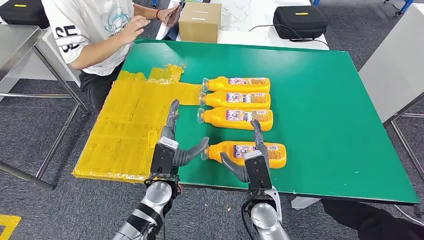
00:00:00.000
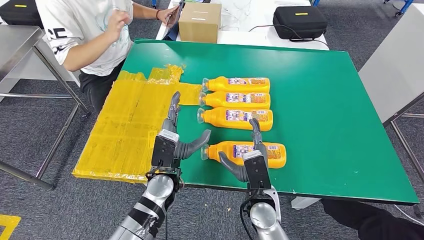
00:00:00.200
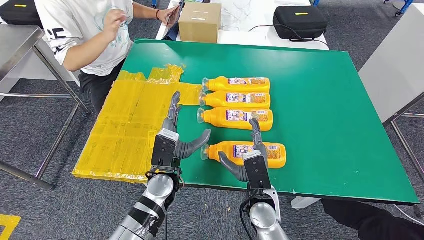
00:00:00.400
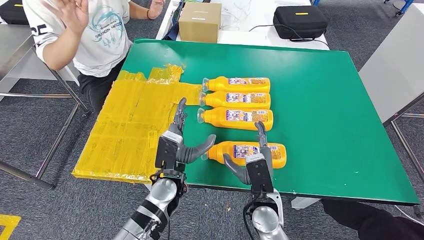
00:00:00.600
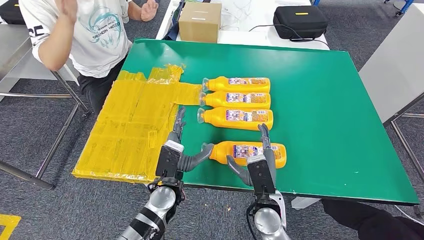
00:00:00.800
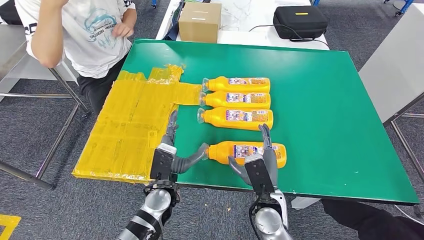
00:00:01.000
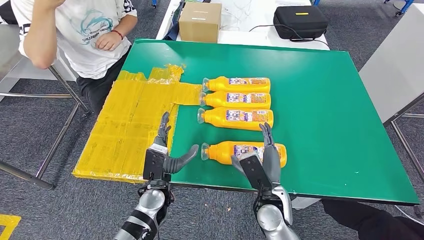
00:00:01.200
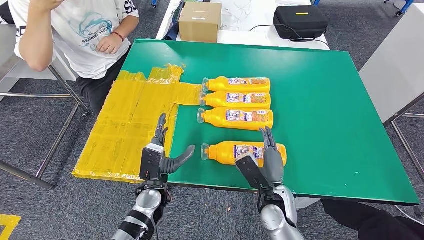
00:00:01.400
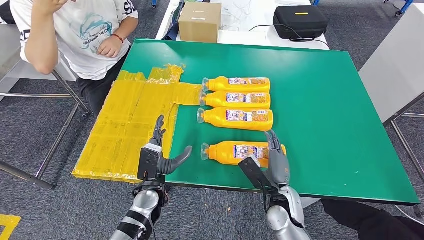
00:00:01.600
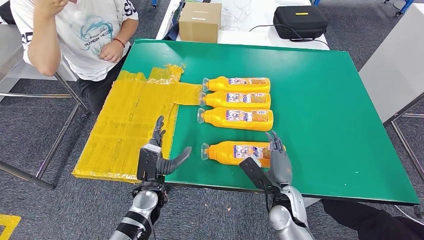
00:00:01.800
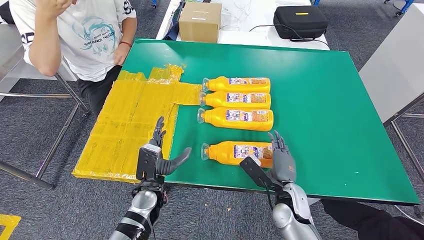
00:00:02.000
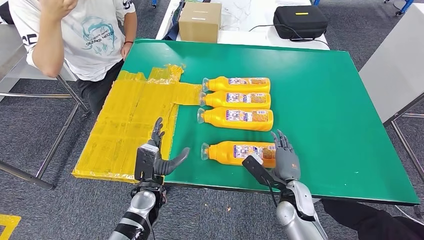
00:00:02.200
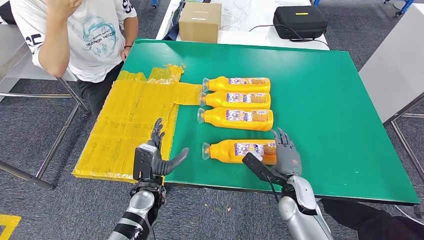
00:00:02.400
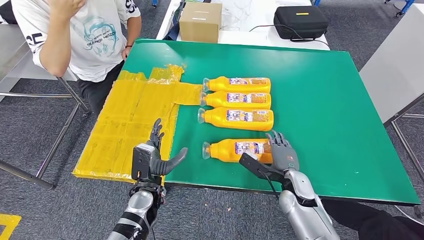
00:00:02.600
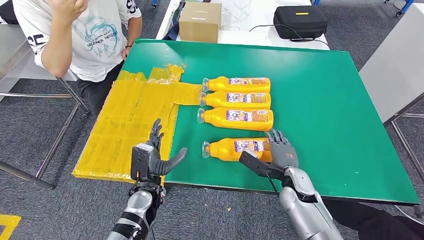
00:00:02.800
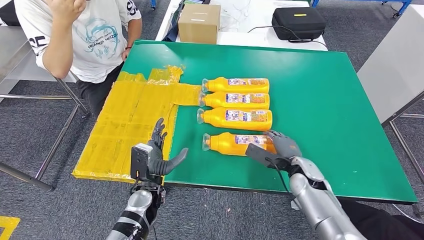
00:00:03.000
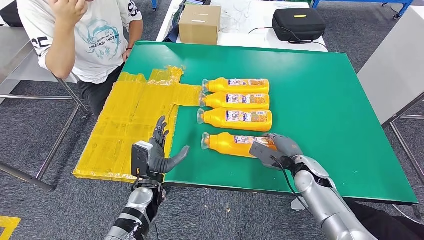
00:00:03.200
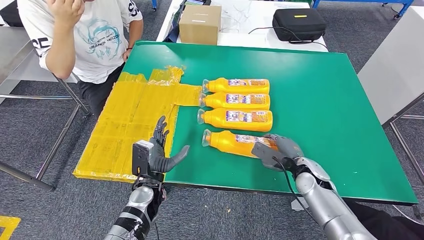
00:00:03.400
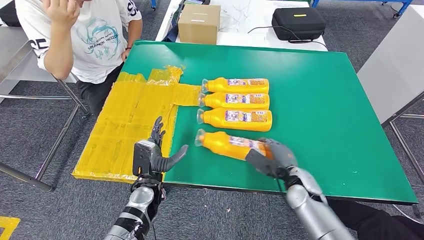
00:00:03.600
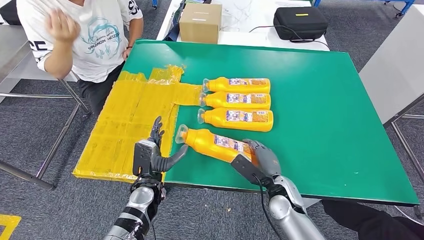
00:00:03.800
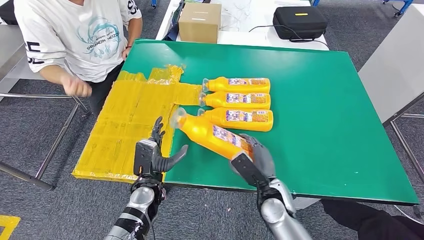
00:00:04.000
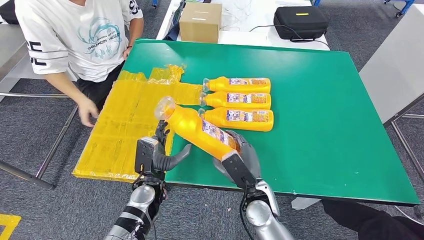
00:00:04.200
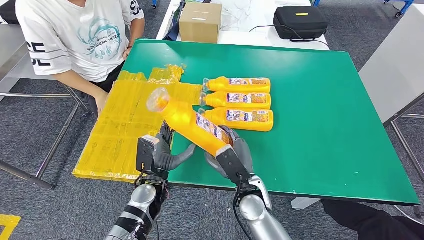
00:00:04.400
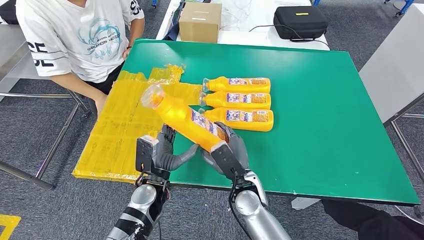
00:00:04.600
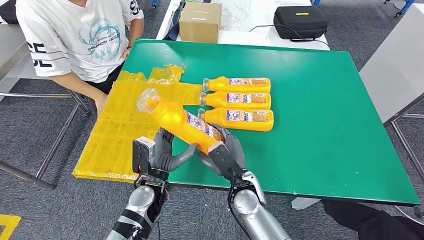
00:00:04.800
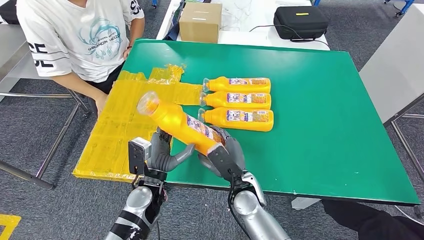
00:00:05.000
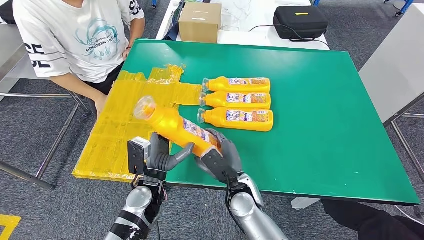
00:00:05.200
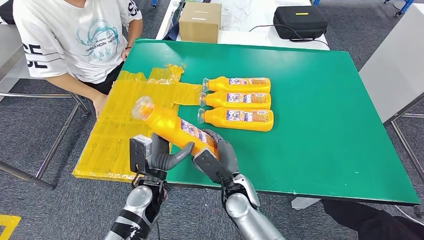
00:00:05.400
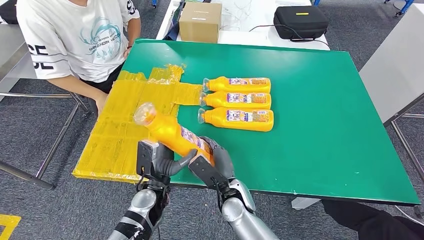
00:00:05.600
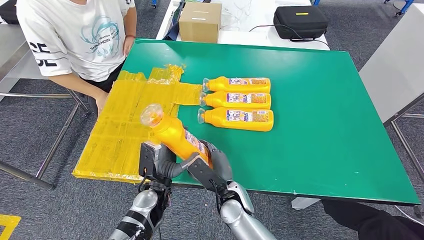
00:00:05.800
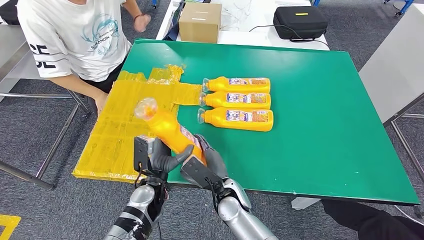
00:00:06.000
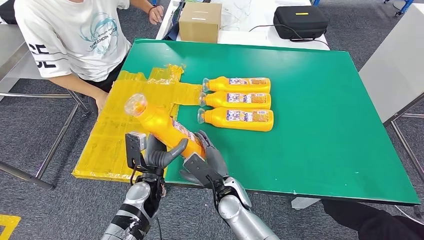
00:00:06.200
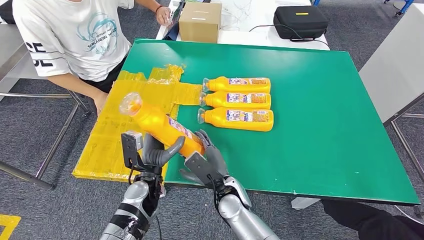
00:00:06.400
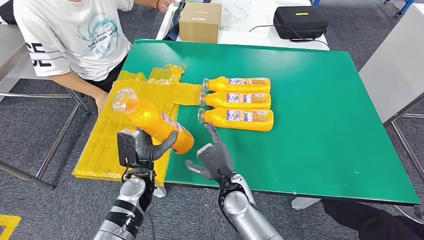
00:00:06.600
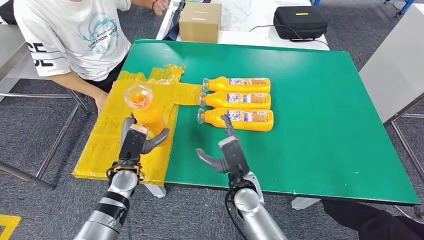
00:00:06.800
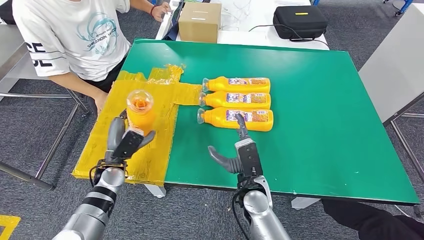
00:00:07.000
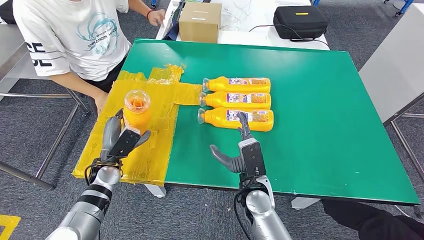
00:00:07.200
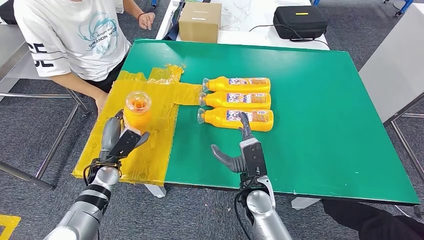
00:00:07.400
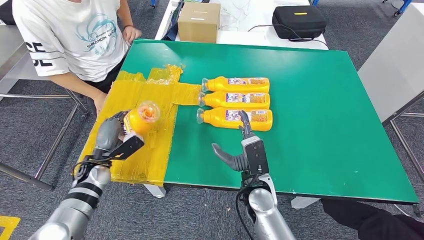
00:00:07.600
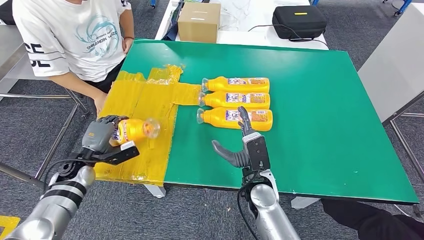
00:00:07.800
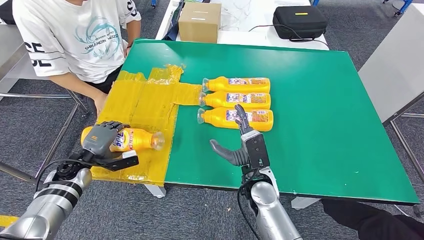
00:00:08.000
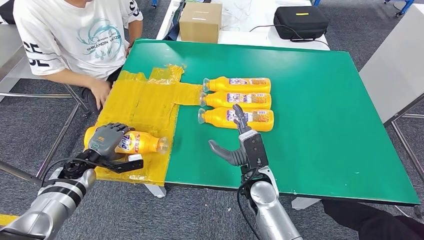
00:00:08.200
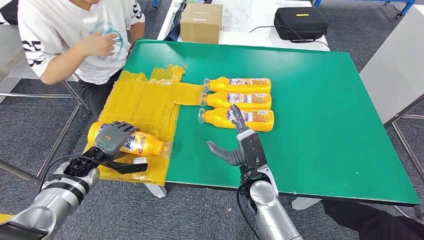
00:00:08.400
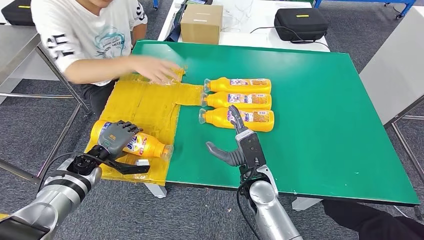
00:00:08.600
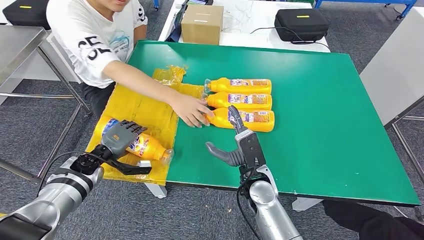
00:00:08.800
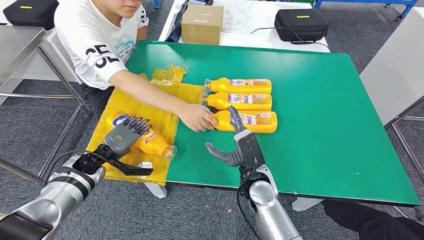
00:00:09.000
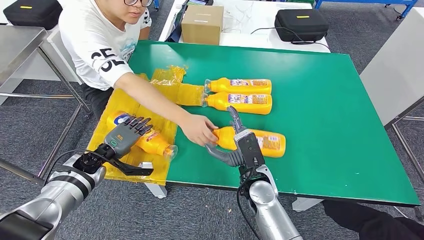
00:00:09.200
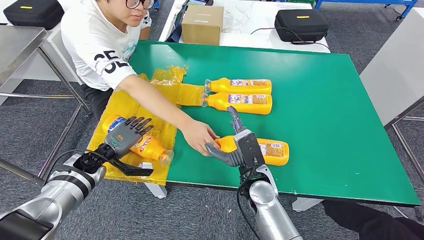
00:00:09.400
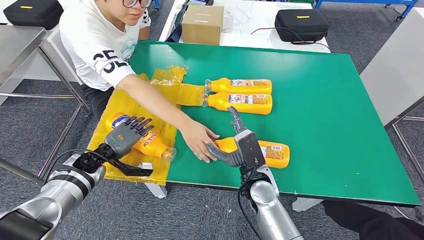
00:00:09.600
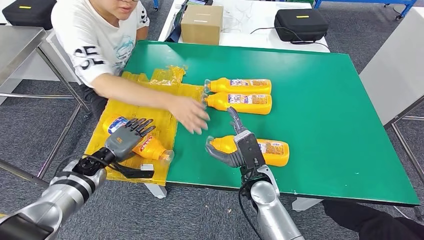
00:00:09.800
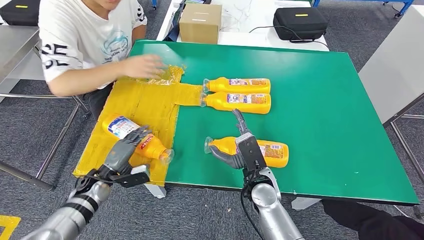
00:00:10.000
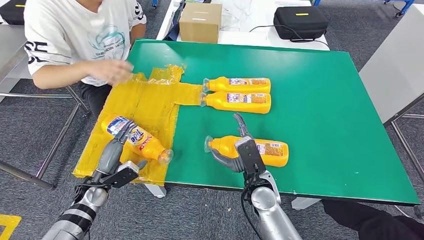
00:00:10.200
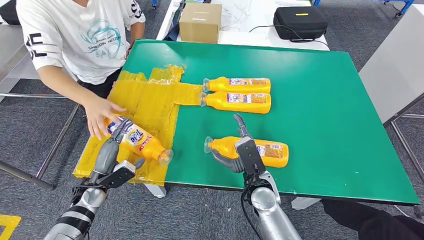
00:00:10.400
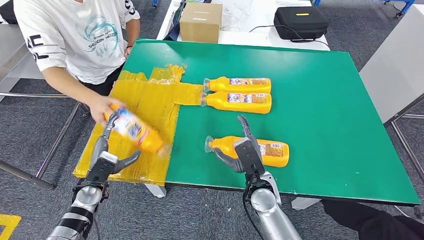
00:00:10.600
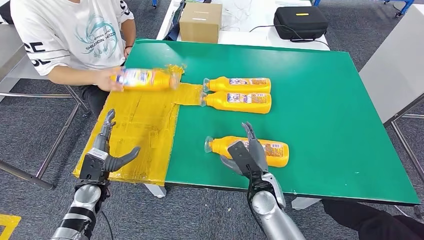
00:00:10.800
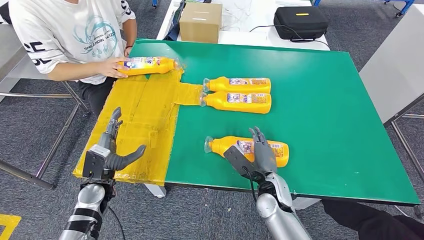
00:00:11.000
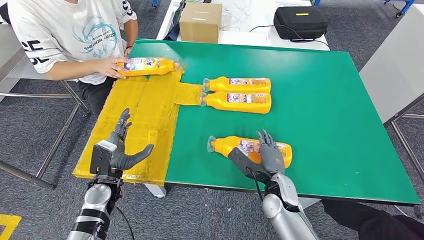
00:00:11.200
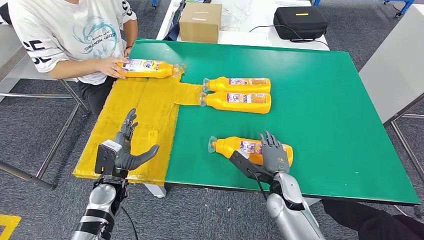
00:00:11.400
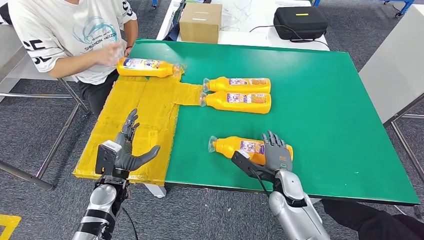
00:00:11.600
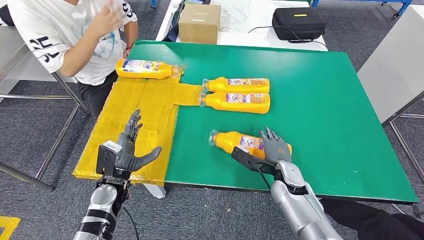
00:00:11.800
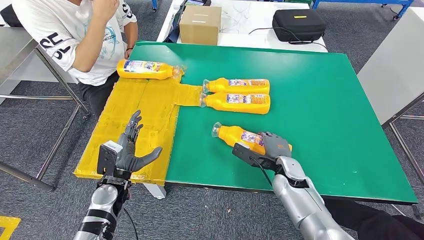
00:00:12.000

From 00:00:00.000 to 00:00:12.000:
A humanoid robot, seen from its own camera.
Step, from 00:00:00.000 to 00:00:04.800: Take the bottle from the table.
Step, from 00:00:05.200 to 00:00:10.400: Flip the bottle to face forward.
From 00:00:01.600 to 00:00:03.000: The right hand moves forward and to the right, some 10 cm.
From 00:00:04.400 to 00:00:06.000: The right hand shifts about 5 cm to the left.

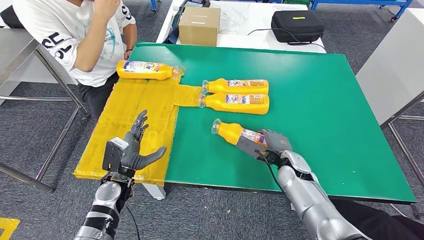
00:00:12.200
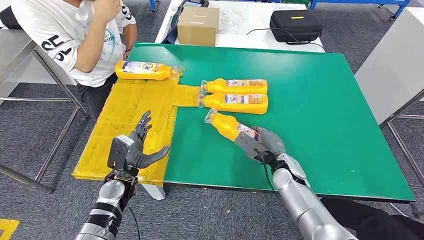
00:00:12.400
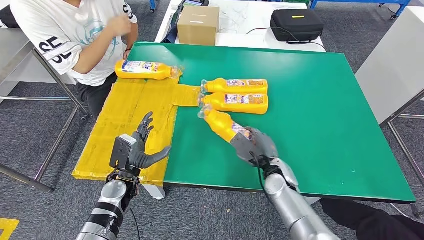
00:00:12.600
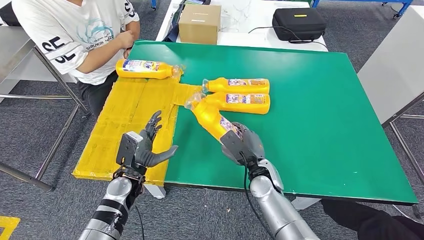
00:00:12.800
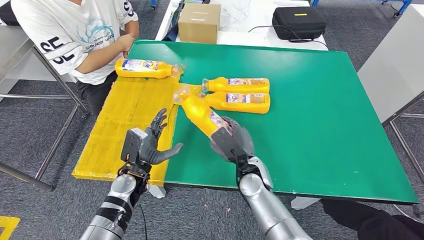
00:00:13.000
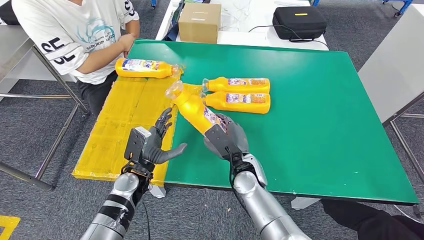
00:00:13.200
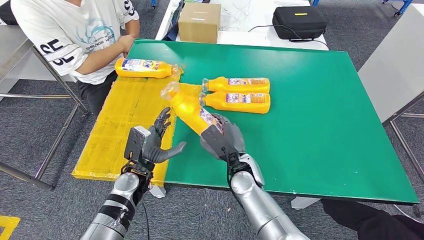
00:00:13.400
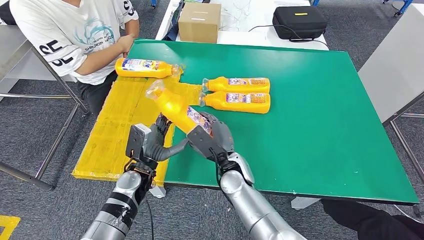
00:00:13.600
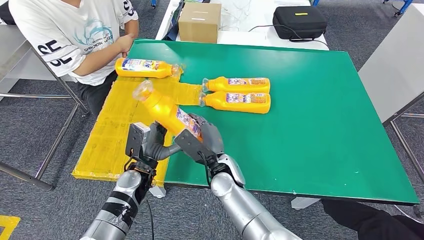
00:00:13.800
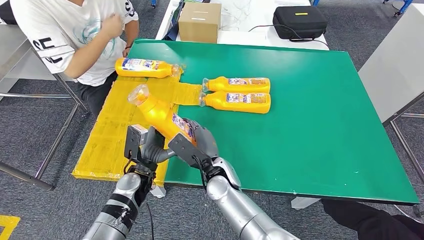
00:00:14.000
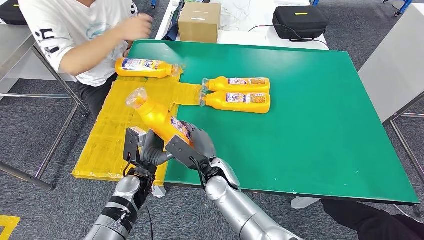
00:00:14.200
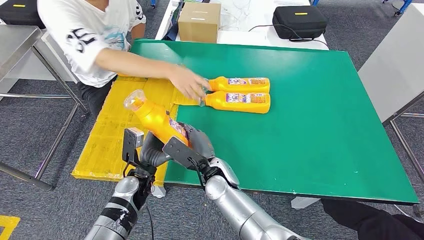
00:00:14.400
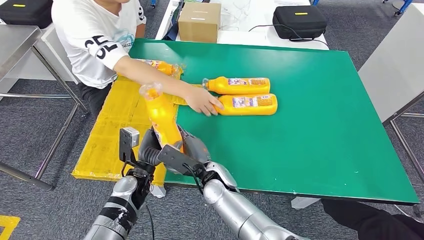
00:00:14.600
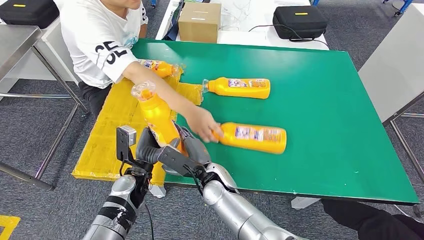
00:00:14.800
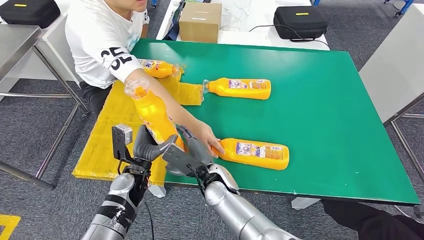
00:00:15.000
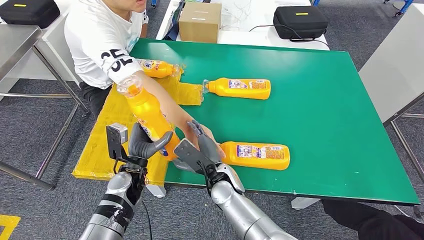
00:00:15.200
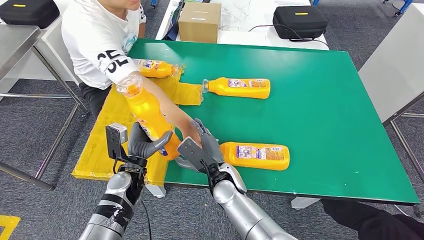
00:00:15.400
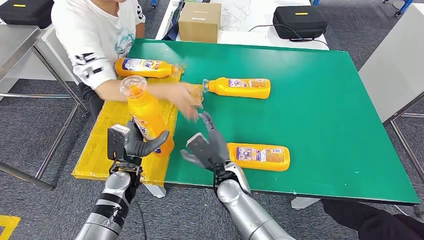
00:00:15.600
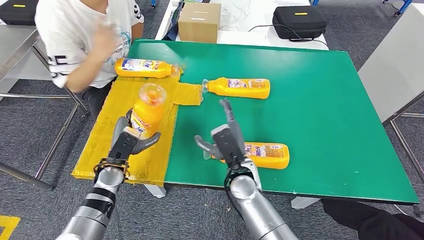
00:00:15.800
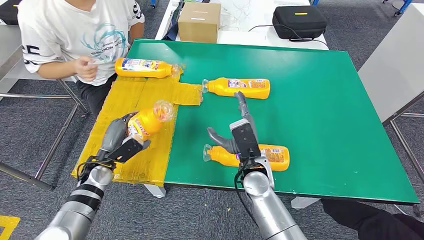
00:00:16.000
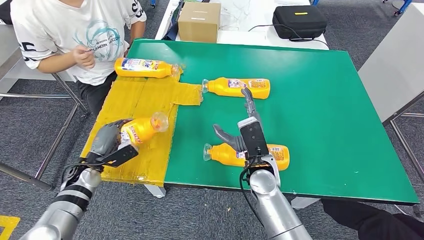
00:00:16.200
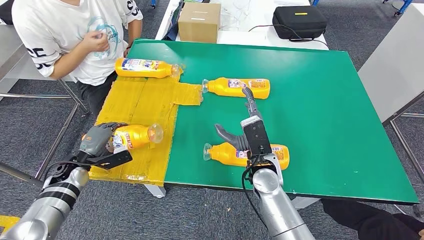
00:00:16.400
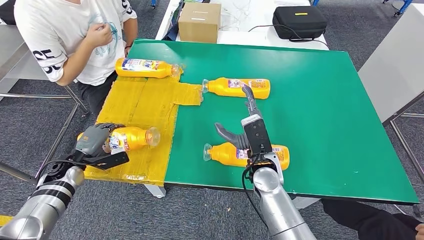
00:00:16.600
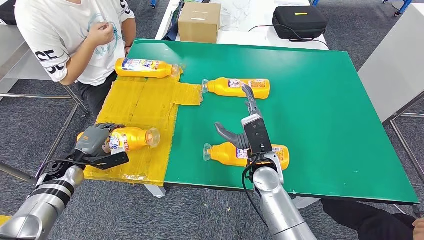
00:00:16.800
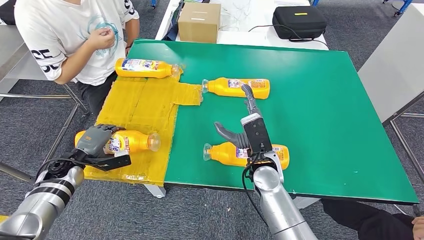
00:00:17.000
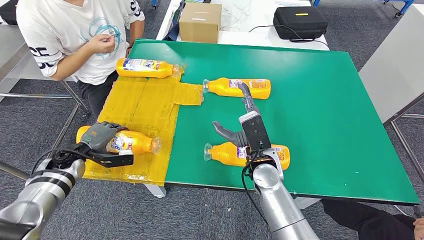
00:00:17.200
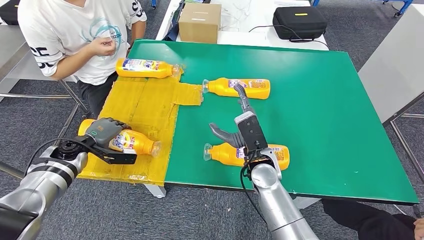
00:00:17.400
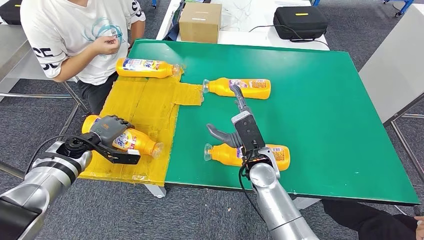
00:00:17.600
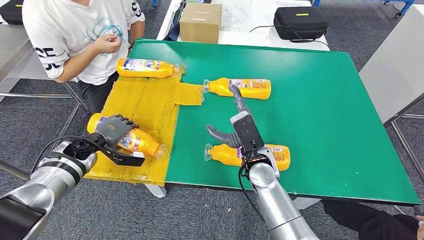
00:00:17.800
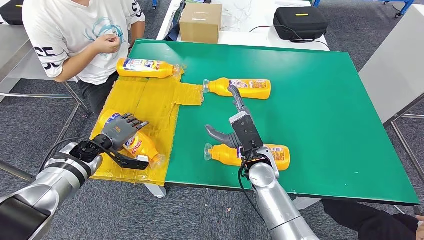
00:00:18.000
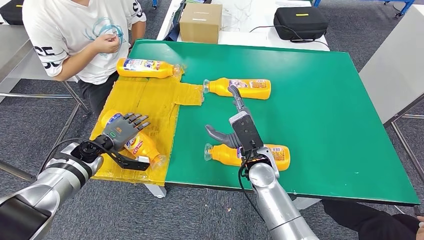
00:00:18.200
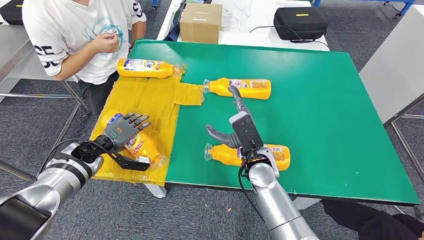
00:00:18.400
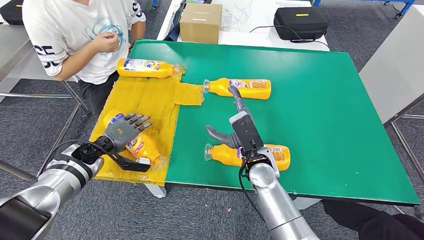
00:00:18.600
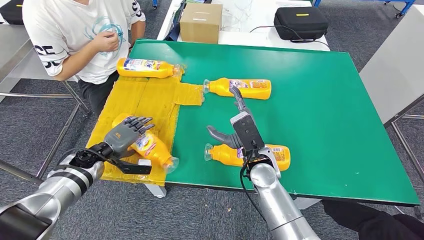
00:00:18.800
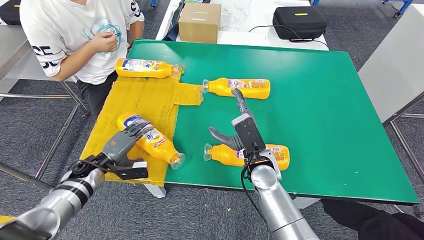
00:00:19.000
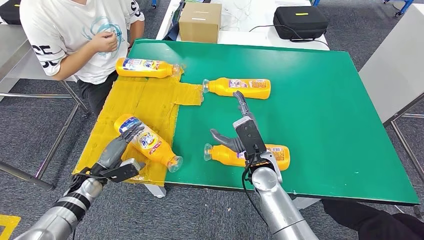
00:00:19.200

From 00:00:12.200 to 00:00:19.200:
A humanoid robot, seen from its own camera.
From 00:00:16.400 to 00:00:17.800: The left hand goes about 5 cm forward.
From 00:00:17.800 to 00:00:19.200: The left hand heads backward and downward, covering approximately 10 cm.
